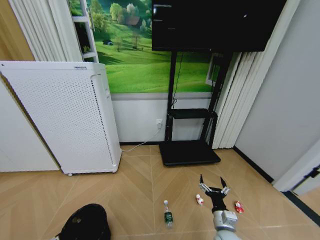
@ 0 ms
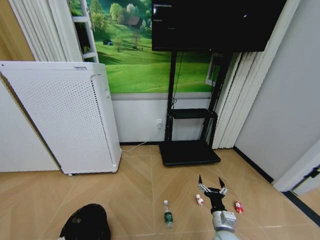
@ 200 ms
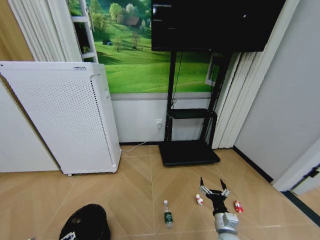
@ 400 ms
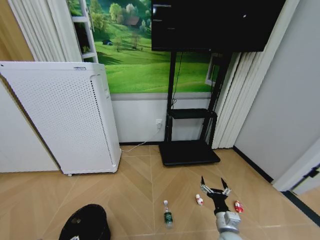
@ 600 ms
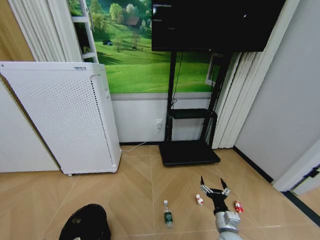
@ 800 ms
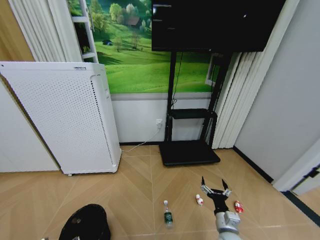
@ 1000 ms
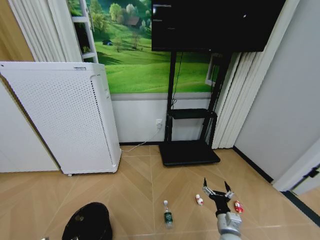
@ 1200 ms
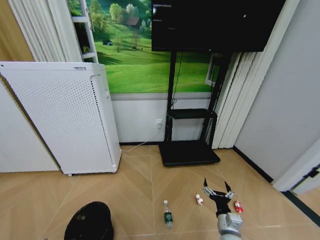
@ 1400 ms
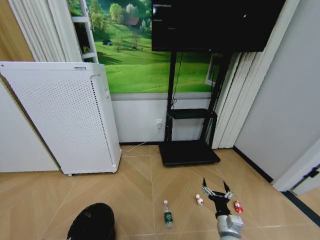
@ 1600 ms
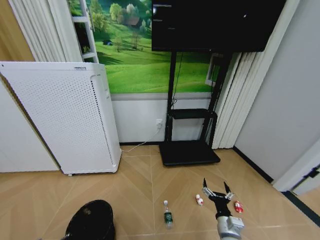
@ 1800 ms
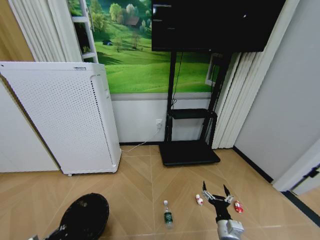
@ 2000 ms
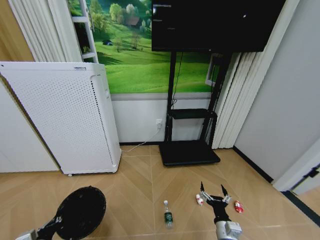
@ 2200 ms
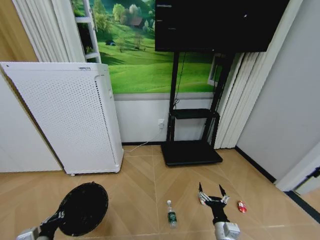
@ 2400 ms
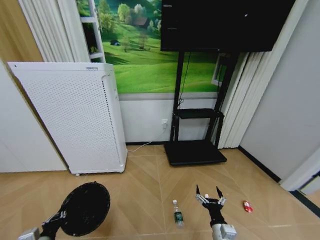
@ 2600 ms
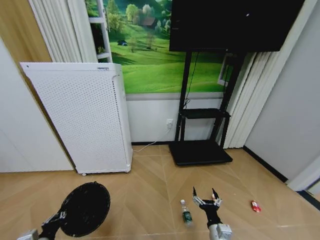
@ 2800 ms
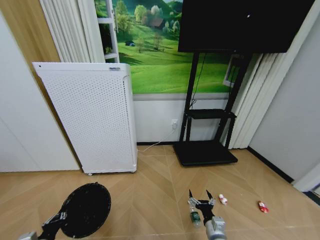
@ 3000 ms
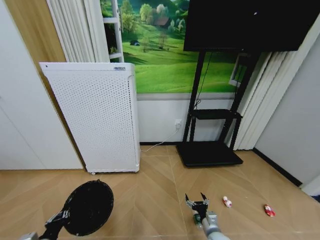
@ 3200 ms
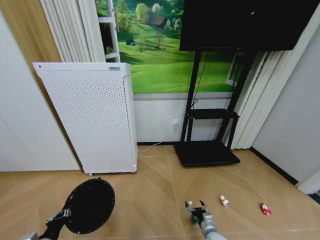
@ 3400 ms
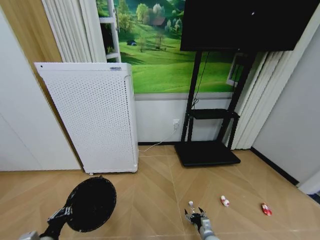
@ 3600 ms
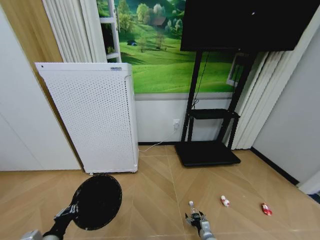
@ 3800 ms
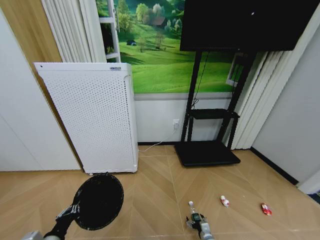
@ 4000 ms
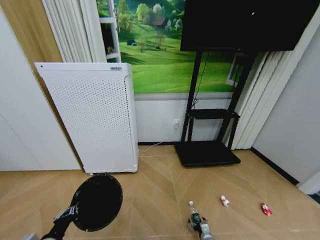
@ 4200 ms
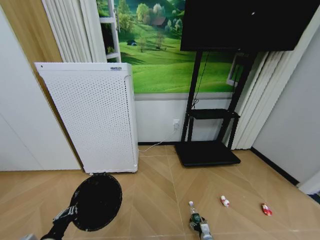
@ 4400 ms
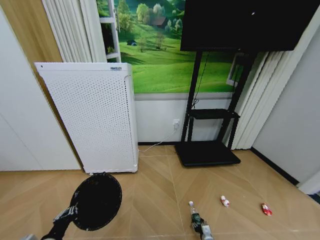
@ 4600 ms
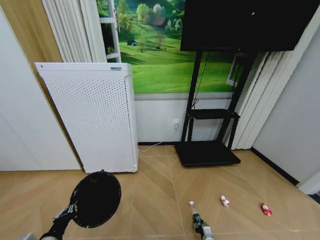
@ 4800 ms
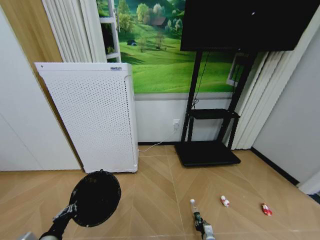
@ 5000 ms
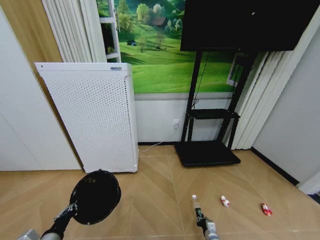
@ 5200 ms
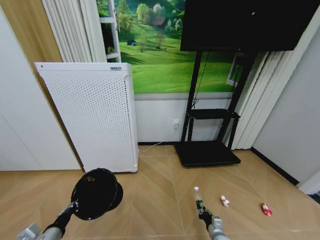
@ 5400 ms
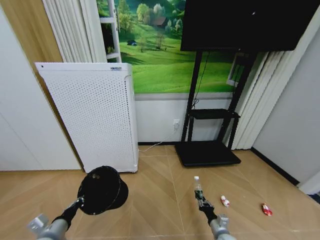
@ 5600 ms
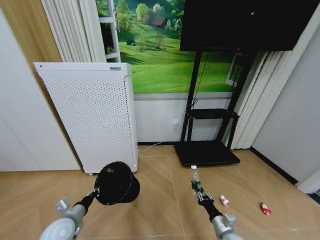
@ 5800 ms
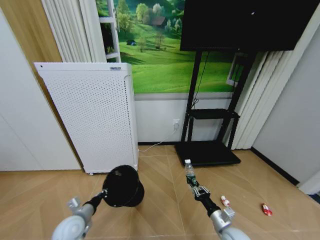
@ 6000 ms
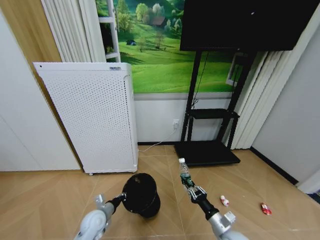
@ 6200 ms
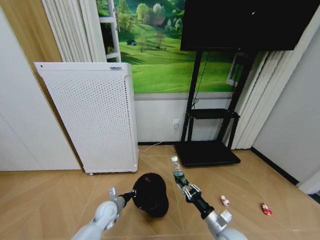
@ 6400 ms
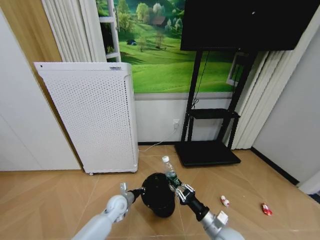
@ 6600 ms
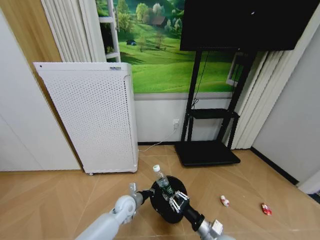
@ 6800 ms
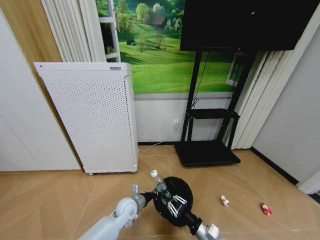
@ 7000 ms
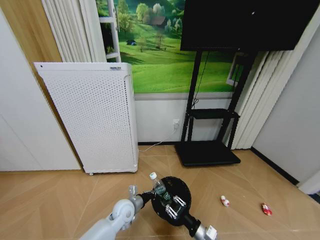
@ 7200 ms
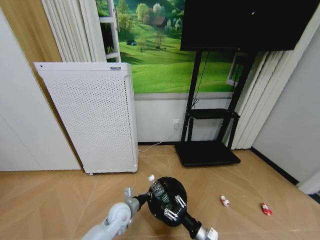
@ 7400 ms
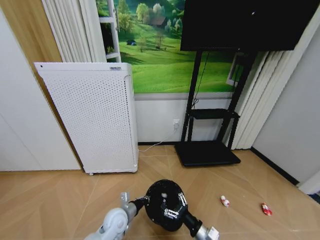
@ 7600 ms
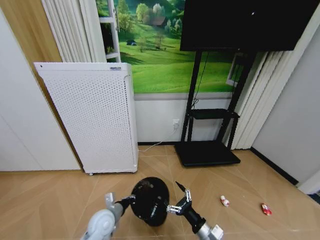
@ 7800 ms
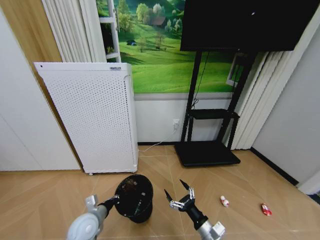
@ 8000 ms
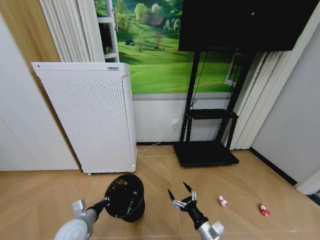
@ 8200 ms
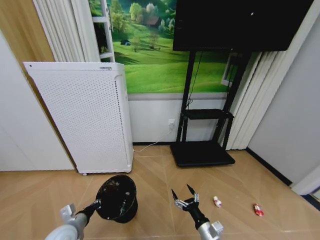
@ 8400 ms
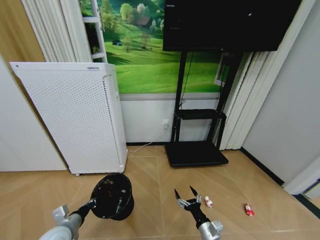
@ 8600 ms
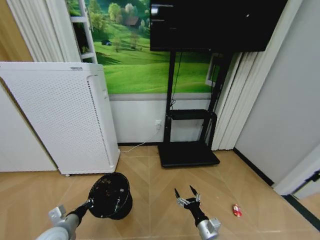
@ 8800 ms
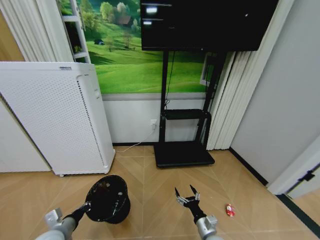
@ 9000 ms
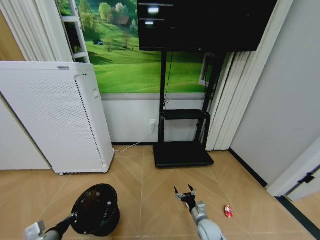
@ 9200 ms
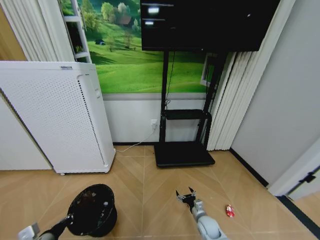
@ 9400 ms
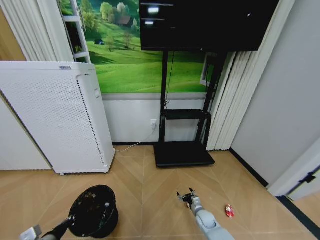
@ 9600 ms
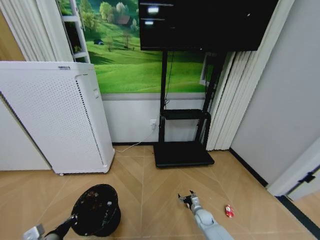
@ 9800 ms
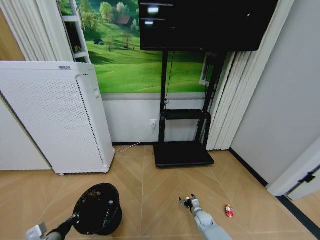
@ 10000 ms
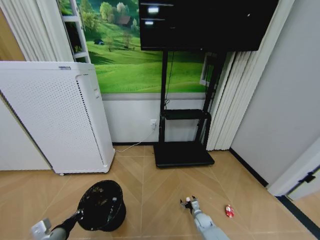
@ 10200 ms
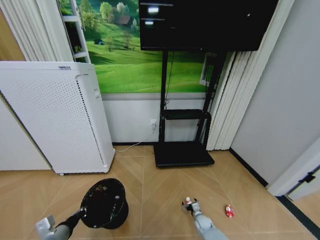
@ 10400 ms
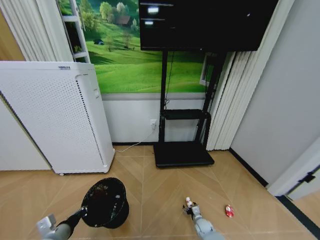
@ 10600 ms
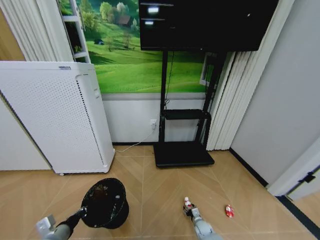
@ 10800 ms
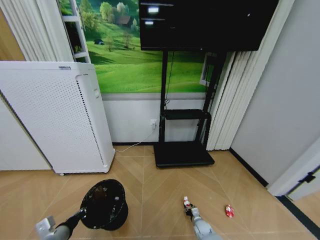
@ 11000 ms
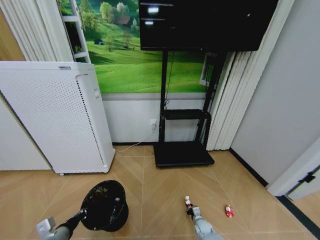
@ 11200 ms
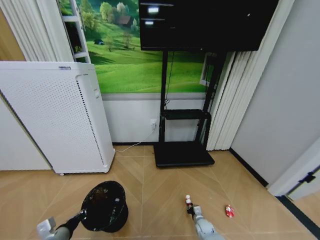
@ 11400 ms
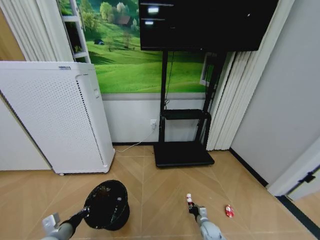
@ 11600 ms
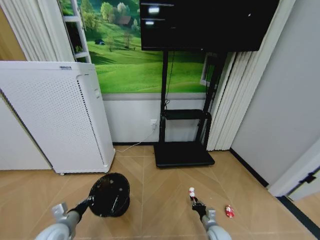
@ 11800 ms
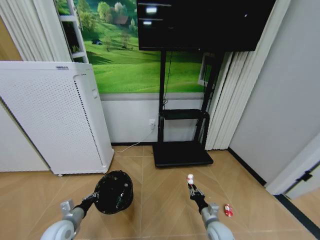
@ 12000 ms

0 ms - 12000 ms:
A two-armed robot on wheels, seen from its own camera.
Task of the whole recording: Pick up the trash bin and place the garbage on the floor into it.
0 ms - 1600 ms: The left gripper moves downward, about 10 cm, and closes its fingers.
3000 ms - 4400 ms: The right gripper heads downward, covering some 20 cm. The left gripper ends up roughly 5 cm from where it was.
4400 ms - 6000 ms: The left gripper travels forward and downward by some 15 cm. Meanwhile the right gripper is displaced upward by roughly 20 cm, and closes.
6000 ms - 7600 ms: The left gripper moves to the right, roughly 15 cm. Meanwhile the right gripper goes roughly 5 cm to the left, and opens.
7600 ms - 9000 ms: The left gripper is displaced to the left and backward by some 25 cm, while the right gripper travels downward by some 5 cm.
9000 ms - 10400 ms: The right gripper is displaced downward and forward by roughly 20 cm.
10400 ms - 12000 ms: The left gripper travels forward and downward by some 10 cm. Meanwhile the right gripper is displaced upward and backward by about 15 cm, and closes.

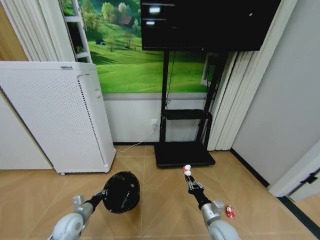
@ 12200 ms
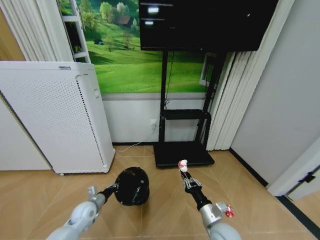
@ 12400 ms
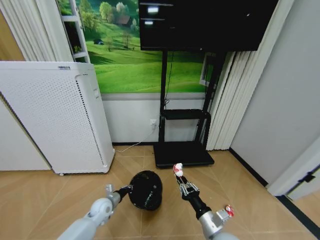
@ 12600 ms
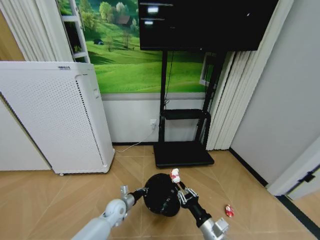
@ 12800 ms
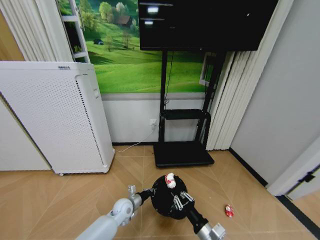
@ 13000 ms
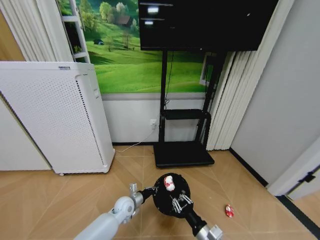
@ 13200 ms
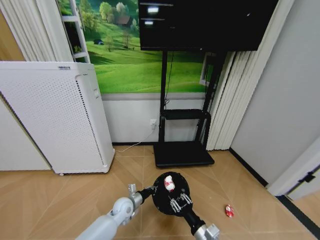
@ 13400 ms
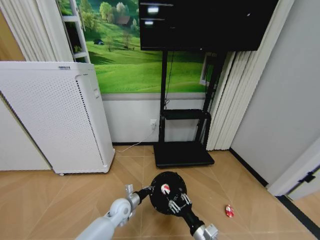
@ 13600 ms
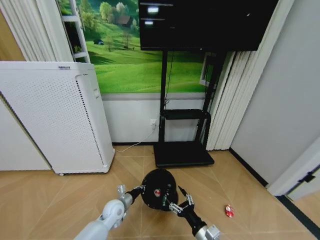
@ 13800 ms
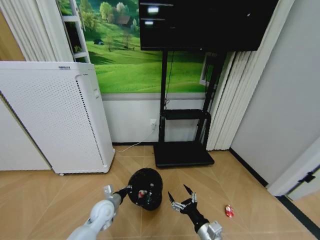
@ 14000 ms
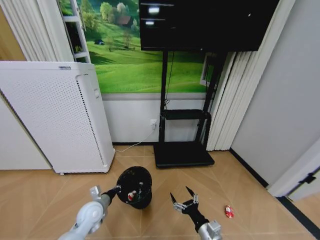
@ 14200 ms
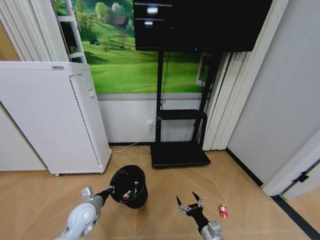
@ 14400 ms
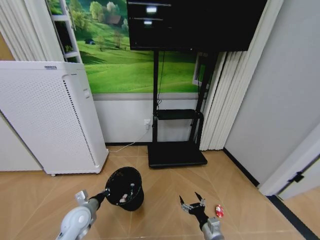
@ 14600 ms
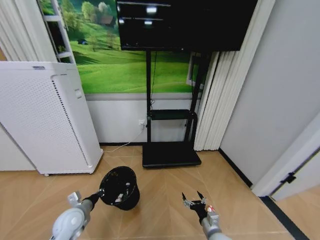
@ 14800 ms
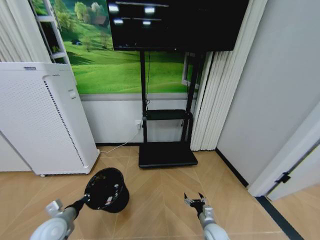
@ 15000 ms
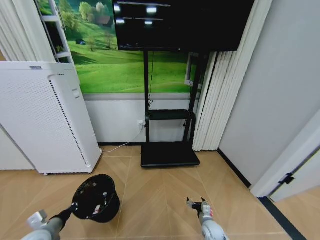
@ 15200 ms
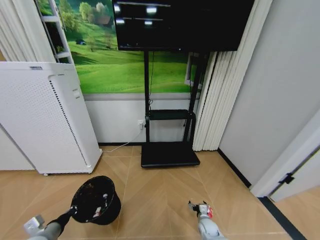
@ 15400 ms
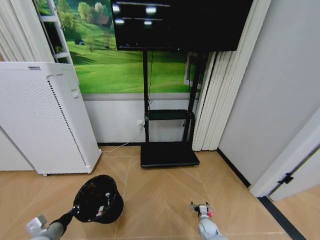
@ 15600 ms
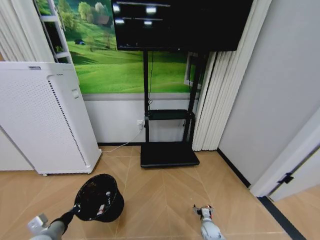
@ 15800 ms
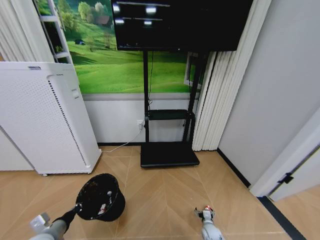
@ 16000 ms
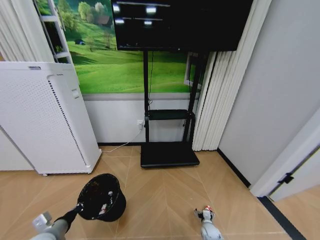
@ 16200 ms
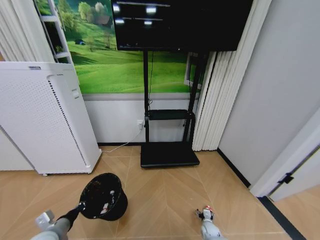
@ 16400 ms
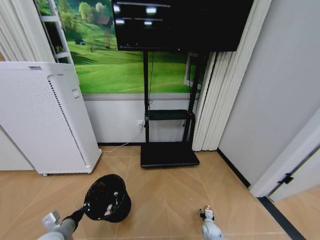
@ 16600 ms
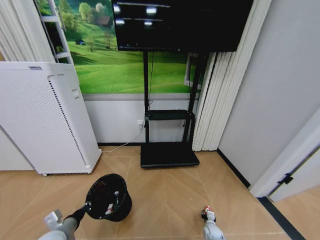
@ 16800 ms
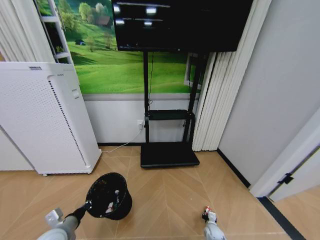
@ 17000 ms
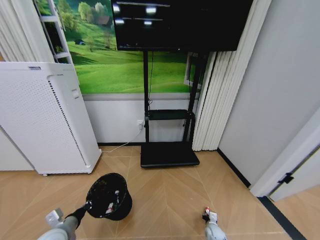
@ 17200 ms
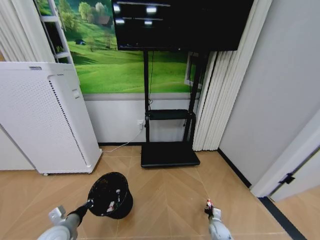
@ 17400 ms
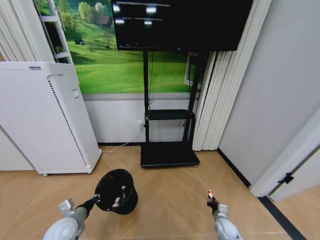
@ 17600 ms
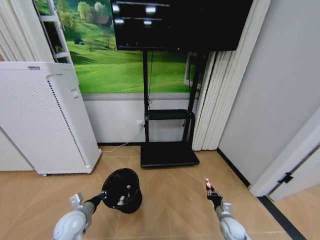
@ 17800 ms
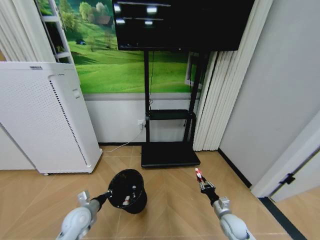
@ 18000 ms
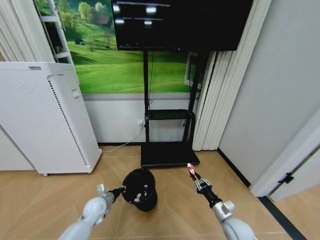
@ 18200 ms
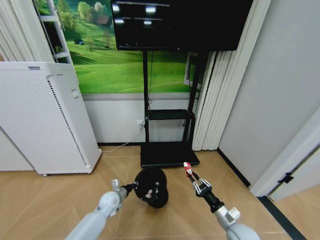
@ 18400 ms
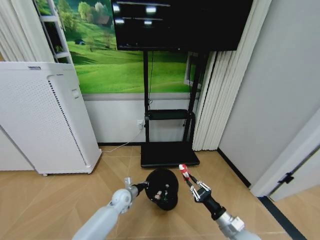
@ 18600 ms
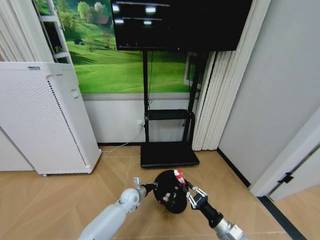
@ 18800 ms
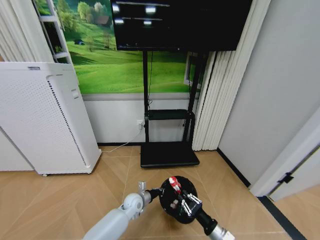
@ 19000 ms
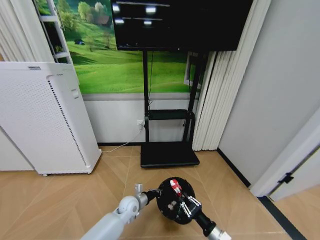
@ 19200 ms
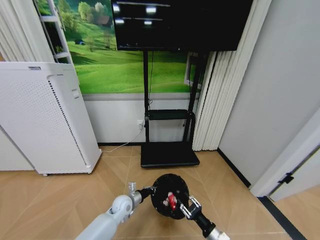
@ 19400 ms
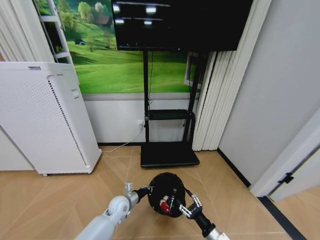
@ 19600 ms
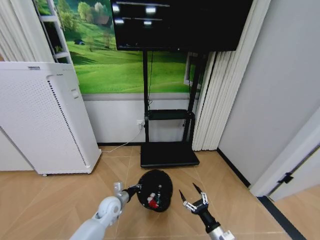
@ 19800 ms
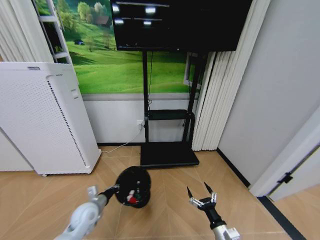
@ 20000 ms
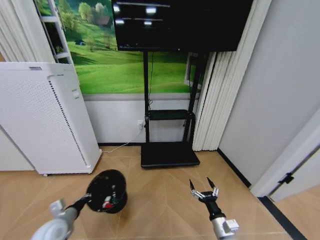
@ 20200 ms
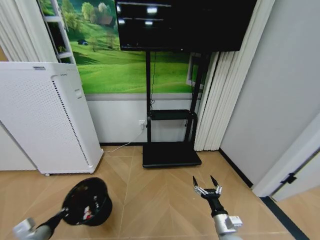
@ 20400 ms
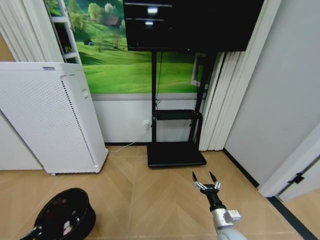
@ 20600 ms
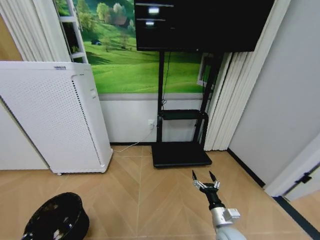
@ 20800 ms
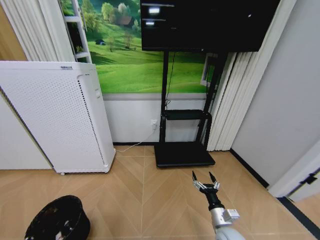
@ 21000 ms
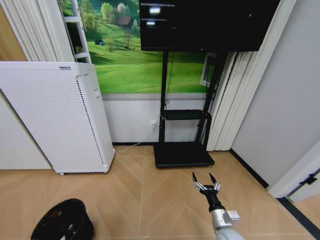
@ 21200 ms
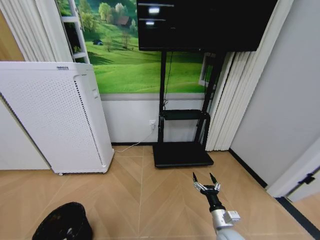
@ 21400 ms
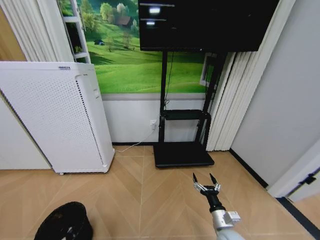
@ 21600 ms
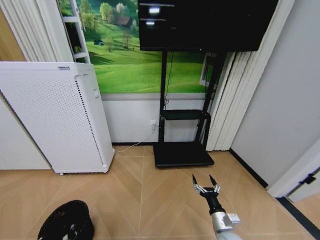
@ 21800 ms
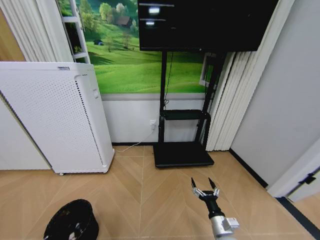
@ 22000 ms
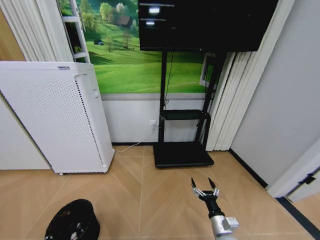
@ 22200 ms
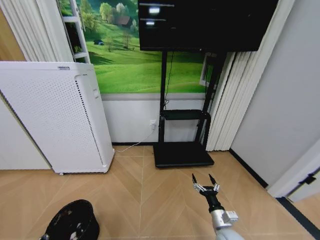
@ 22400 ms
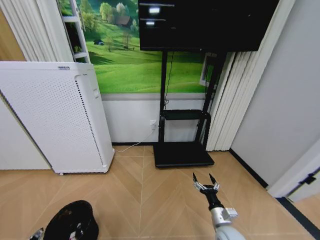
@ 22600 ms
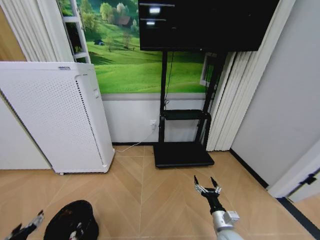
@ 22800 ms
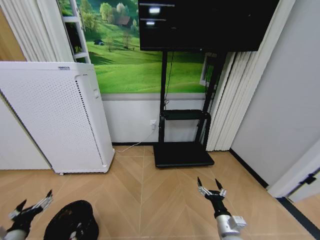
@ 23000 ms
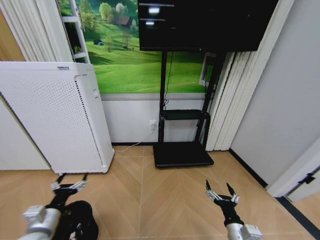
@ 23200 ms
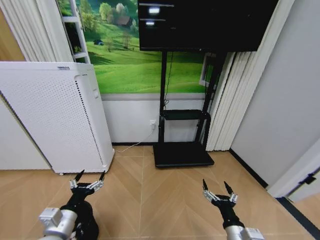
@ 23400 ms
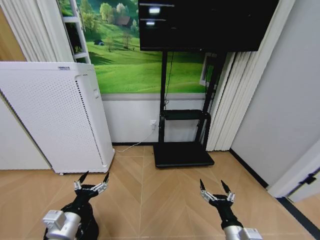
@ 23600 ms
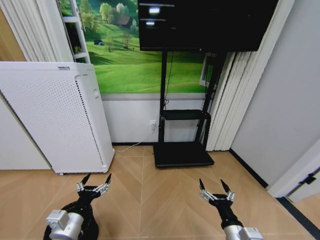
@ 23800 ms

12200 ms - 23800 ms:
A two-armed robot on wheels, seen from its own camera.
Task of the whole recording: Pick up the trash bin and place the garbage on the floor into it.
12200 ms - 13600 ms: The left gripper moves to the right, about 20 cm. Meanwhile the right gripper moves backward and to the left, about 10 cm, and opens its fingers.
13600 ms - 15000 ms: The left gripper travels to the left, backward and upward by roughly 25 cm; the right gripper moves downward, forward and to the right, some 15 cm, and opens up.
15000 ms - 16600 ms: The right gripper heads downward, covering approximately 15 cm, and closes its fingers.
16600 ms - 18000 ms: The right gripper is displaced upward by about 20 cm, and closes. Meanwhile the left gripper travels forward by about 10 cm.
18000 ms - 19400 ms: The left gripper goes approximately 20 cm to the right and forward. Meanwhile the right gripper travels backward and to the left by about 15 cm.
19400 ms - 21000 ms: The right gripper goes about 5 cm forward, and opens up. The left gripper goes some 40 cm to the left and backward.
22400 ms - 23800 ms: The left gripper moves to the right and upward, some 25 cm, and opens its fingers; the right gripper shifts some 10 cm upward and backward.
